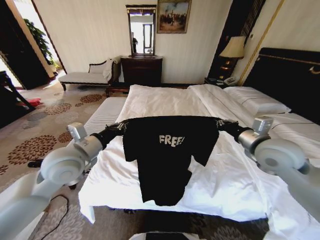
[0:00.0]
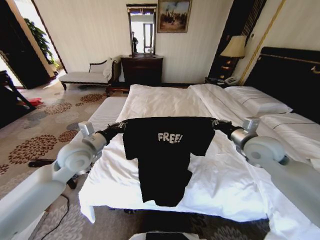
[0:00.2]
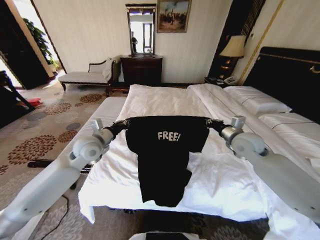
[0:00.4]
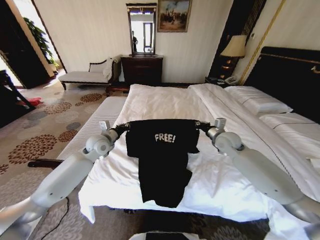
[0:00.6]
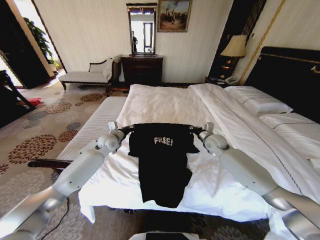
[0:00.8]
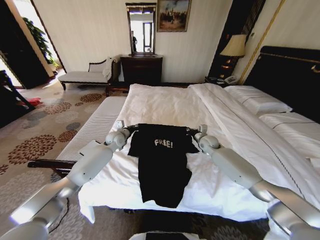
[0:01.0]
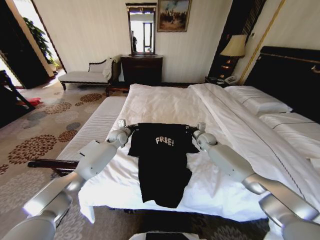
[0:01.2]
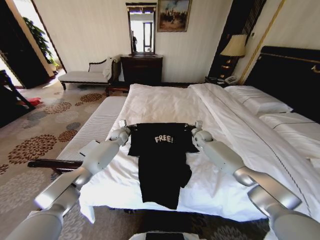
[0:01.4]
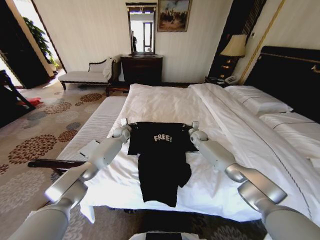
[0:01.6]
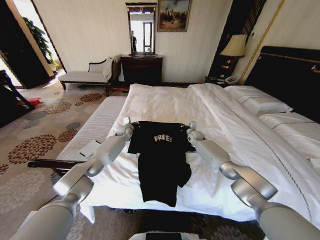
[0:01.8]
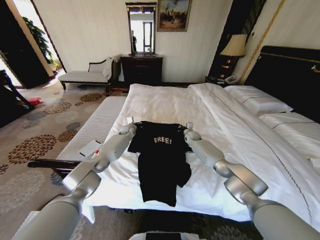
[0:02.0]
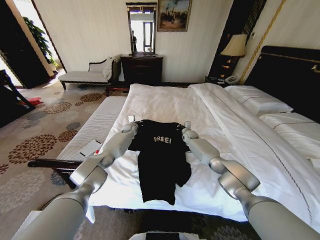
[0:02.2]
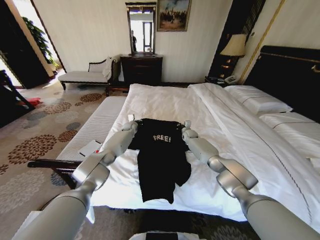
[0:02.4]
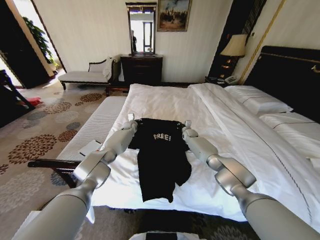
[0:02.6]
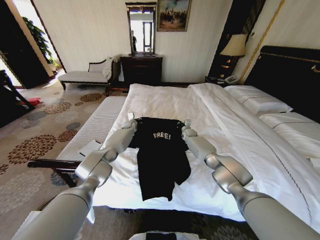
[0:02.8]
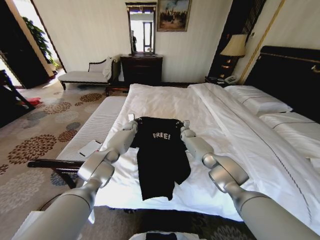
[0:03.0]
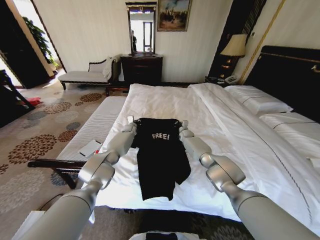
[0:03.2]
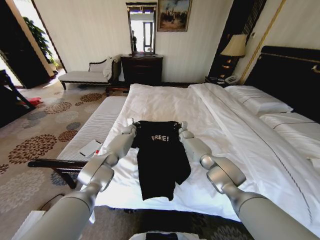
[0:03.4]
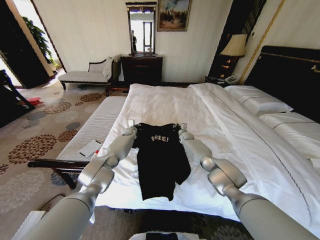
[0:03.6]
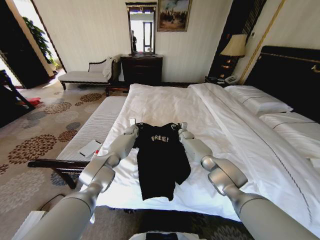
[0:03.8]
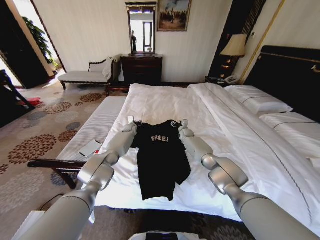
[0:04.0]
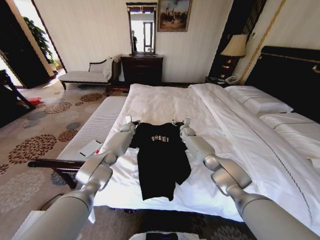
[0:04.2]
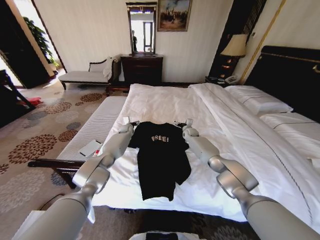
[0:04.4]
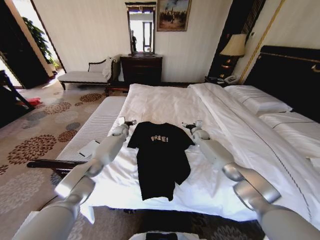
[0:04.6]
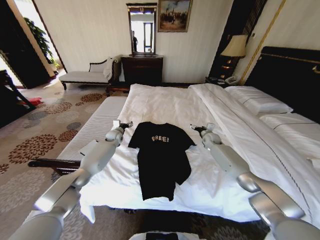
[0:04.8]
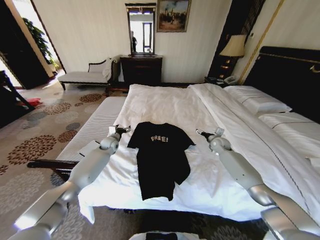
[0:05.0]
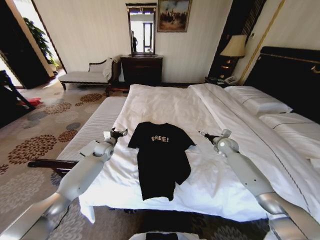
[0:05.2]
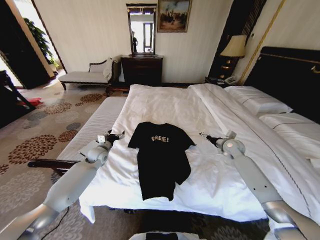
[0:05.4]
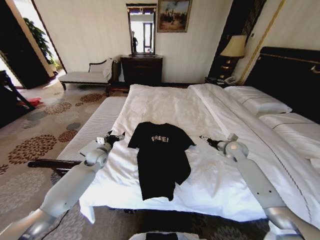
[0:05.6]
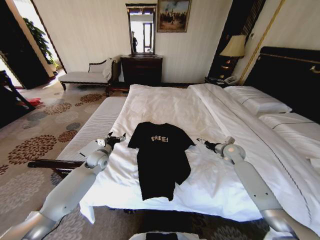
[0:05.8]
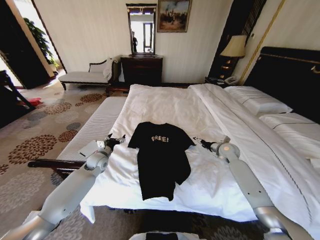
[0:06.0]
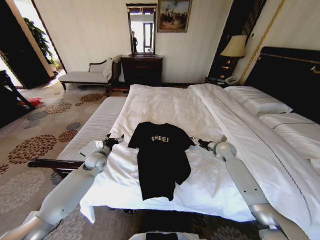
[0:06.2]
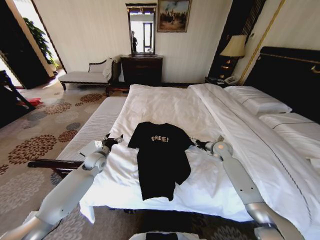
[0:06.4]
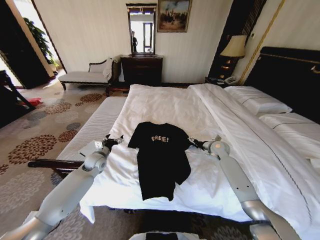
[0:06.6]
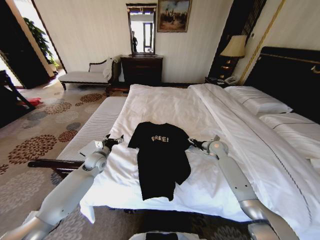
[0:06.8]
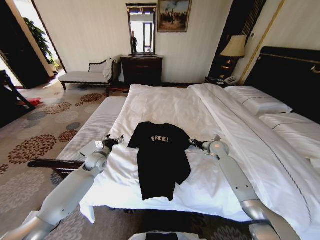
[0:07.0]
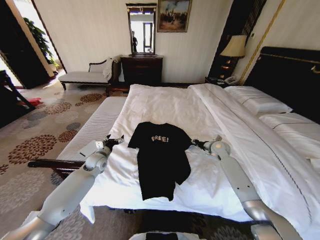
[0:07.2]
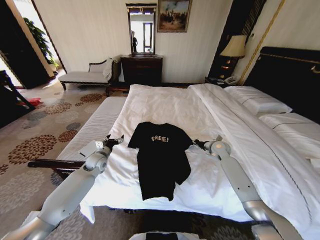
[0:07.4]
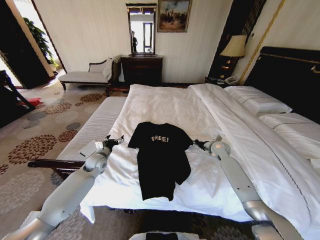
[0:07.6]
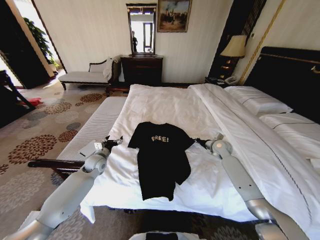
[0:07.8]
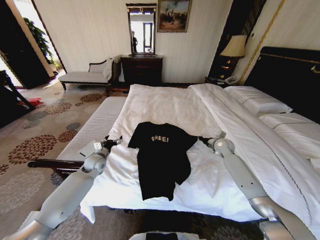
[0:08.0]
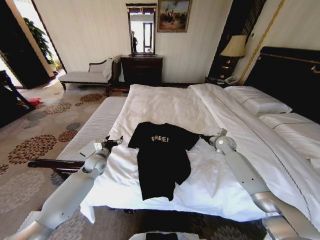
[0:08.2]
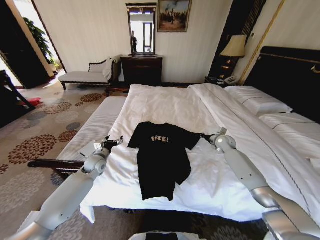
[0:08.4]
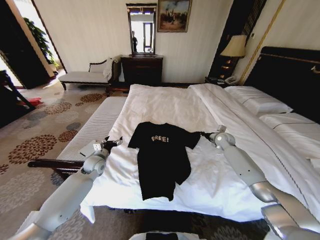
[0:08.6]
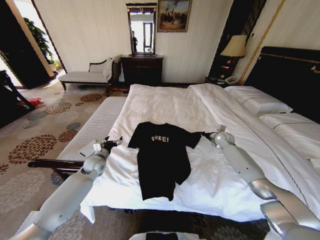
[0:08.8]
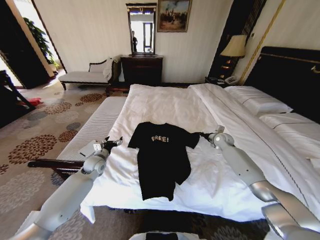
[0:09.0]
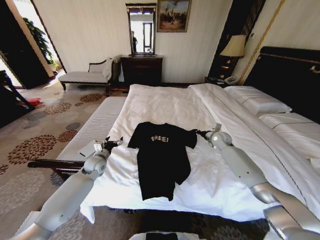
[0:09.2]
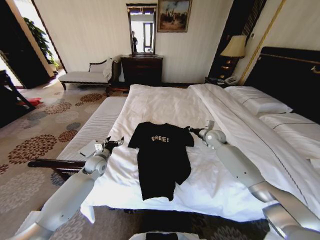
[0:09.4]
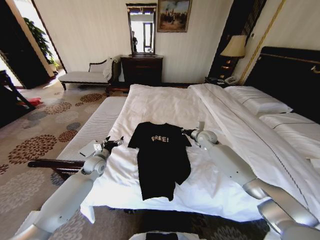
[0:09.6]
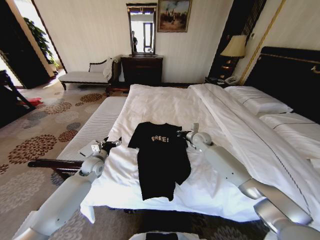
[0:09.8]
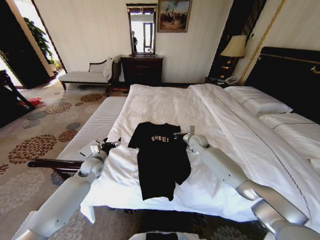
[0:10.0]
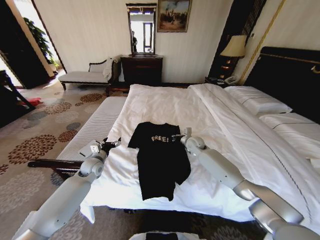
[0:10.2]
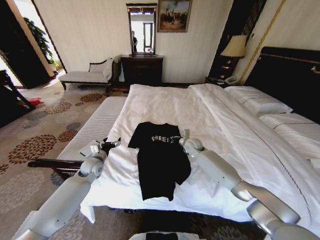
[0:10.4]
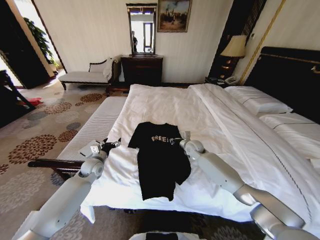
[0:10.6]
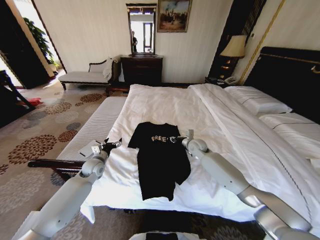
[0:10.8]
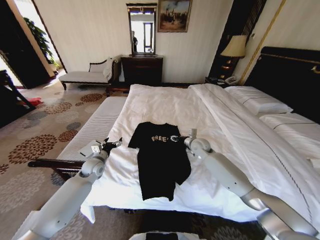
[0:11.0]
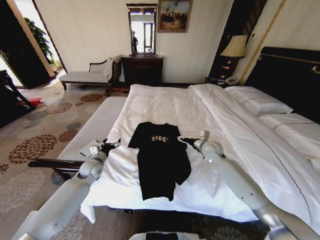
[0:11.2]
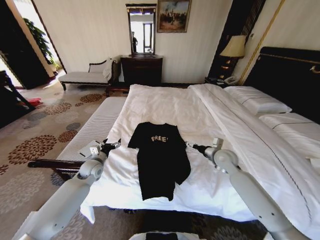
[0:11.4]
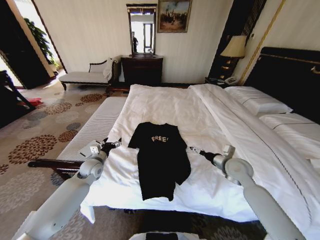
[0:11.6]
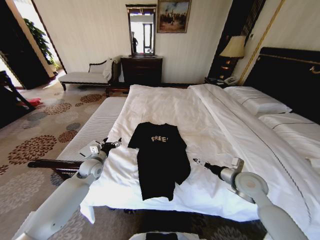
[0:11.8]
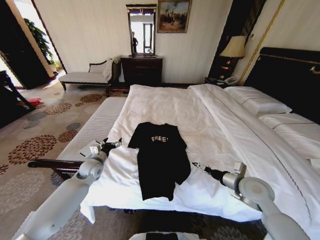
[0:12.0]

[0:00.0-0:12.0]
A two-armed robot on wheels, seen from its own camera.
Task of the whole recording: Fold the clothes on the bed.
0:00.0 to 0:01.6: The two grippers go about 35 cm forward and downward.
0:01.6 to 0:03.0: The two grippers go approximately 5 cm forward.
0:03.0 to 0:04.4: The left gripper opens up; the right gripper opens up.
0:04.4 to 0:06.0: The left gripper is displaced backward and to the left by approximately 25 cm. The right gripper heads backward and to the right, covering some 25 cm.
0:06.0 to 0:07.6: The right gripper closes its fingers.
0:07.6 to 0:09.0: The right gripper moves forward, some 5 cm.
0:09.0 to 0:10.4: The right gripper goes some 20 cm to the left.
0:10.4 to 0:12.0: The right gripper heads backward and to the right, covering approximately 30 cm, and opens its fingers.

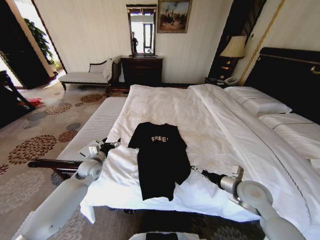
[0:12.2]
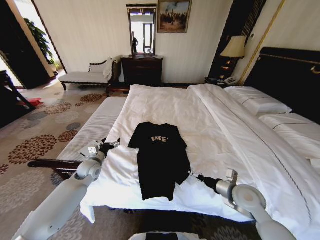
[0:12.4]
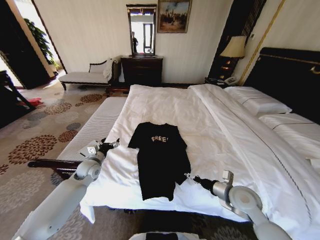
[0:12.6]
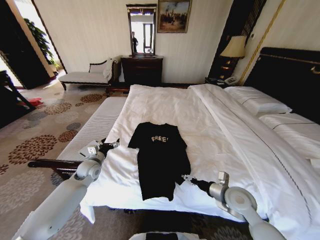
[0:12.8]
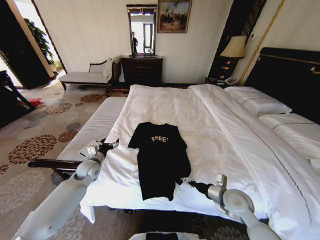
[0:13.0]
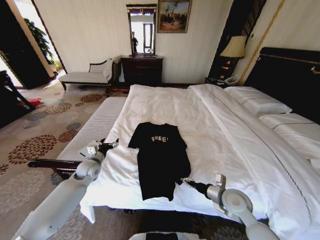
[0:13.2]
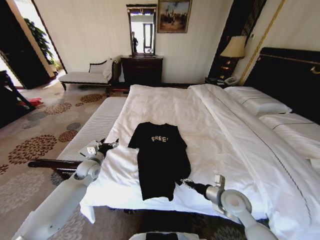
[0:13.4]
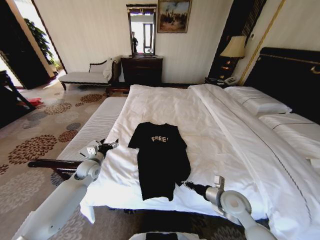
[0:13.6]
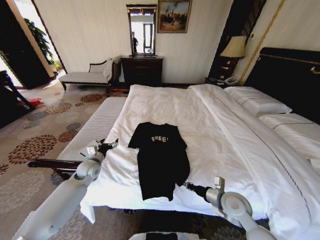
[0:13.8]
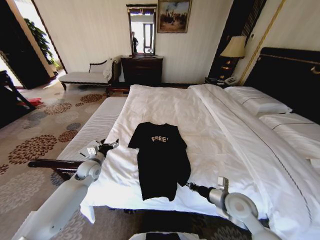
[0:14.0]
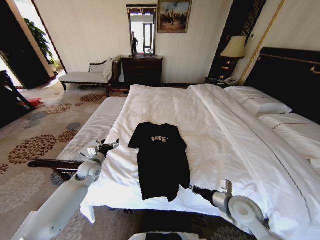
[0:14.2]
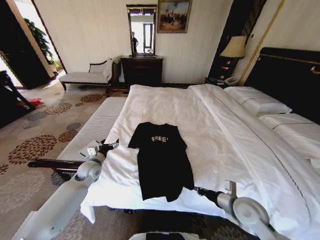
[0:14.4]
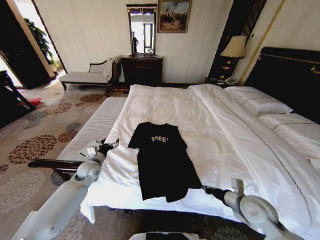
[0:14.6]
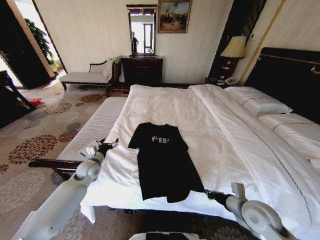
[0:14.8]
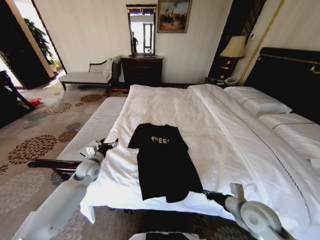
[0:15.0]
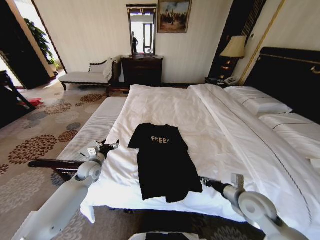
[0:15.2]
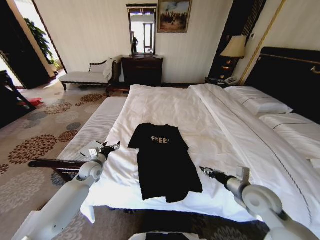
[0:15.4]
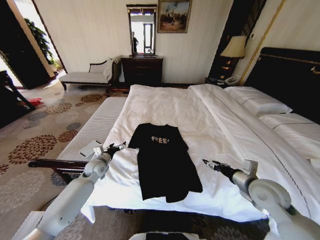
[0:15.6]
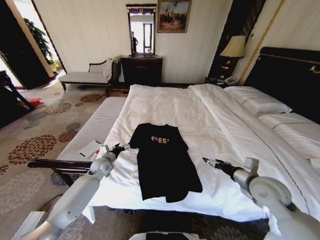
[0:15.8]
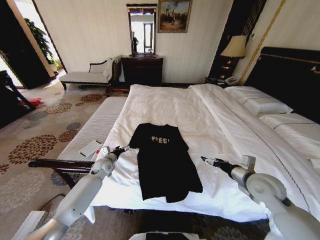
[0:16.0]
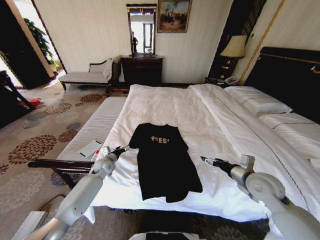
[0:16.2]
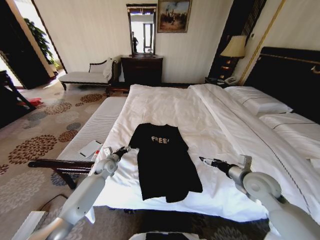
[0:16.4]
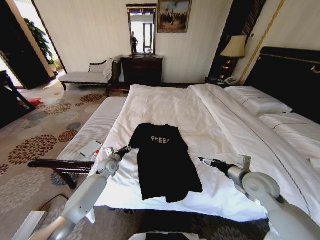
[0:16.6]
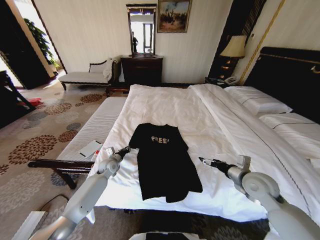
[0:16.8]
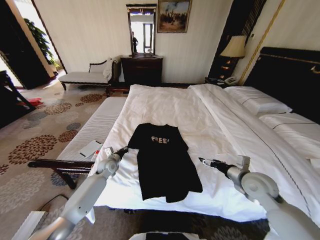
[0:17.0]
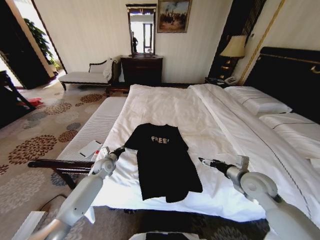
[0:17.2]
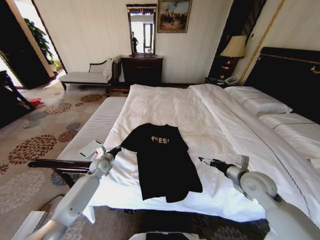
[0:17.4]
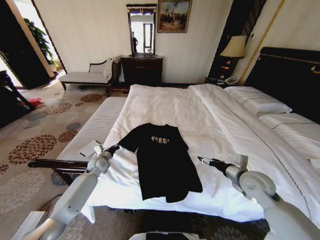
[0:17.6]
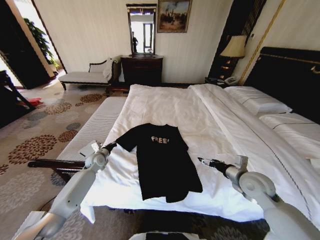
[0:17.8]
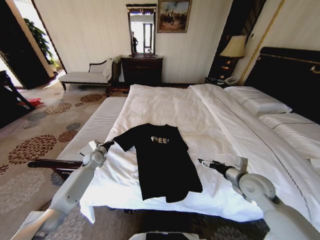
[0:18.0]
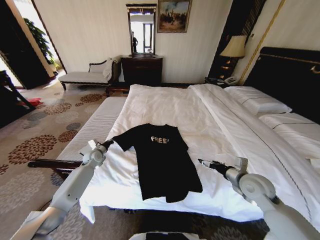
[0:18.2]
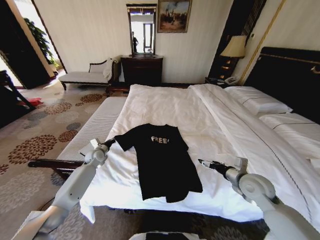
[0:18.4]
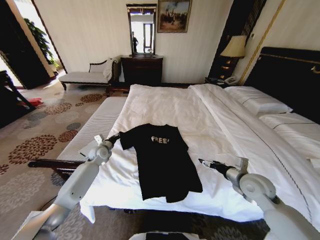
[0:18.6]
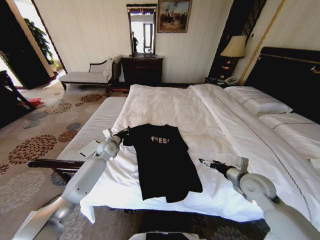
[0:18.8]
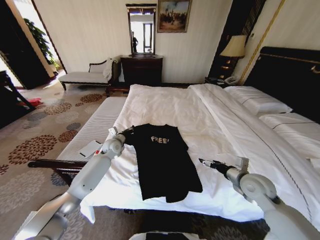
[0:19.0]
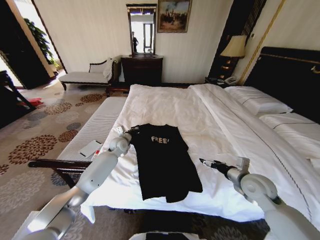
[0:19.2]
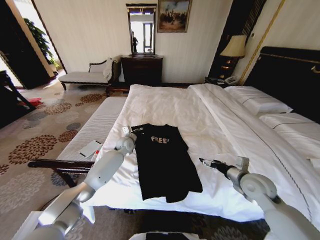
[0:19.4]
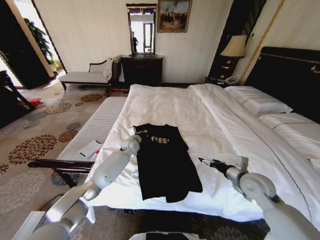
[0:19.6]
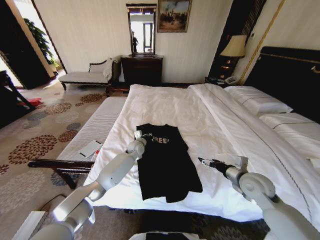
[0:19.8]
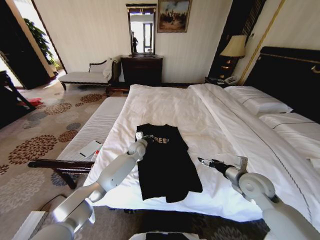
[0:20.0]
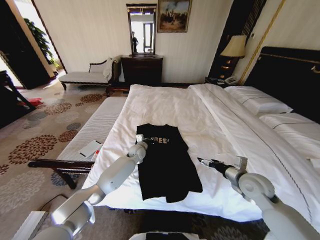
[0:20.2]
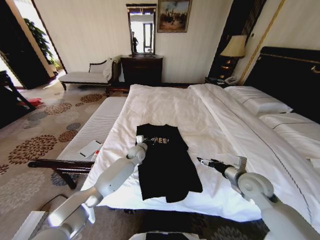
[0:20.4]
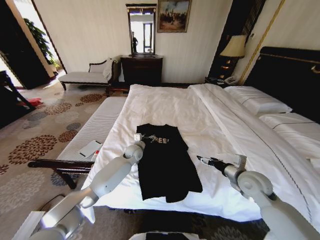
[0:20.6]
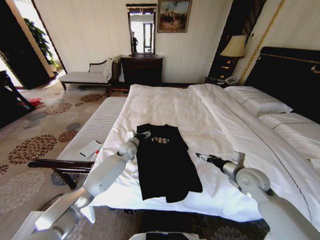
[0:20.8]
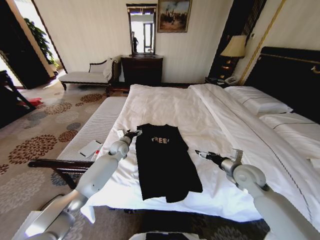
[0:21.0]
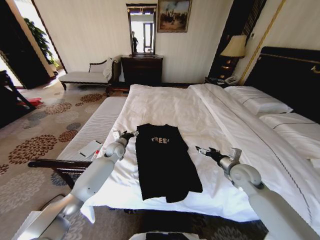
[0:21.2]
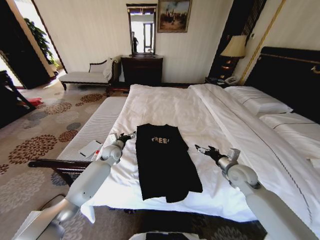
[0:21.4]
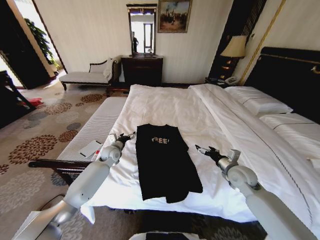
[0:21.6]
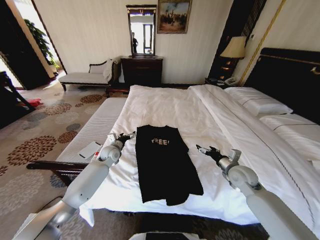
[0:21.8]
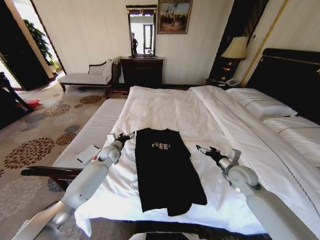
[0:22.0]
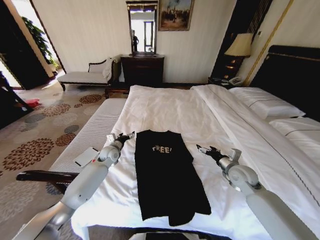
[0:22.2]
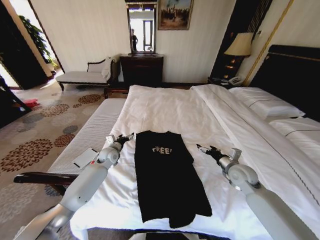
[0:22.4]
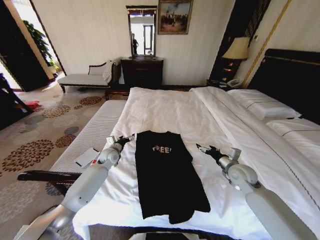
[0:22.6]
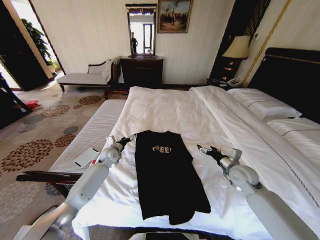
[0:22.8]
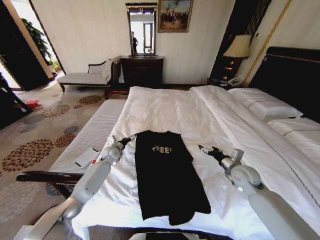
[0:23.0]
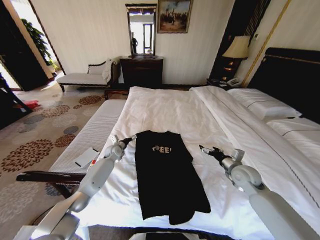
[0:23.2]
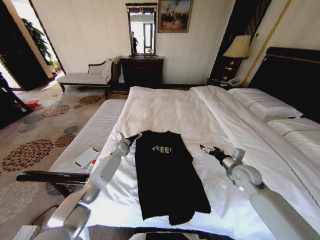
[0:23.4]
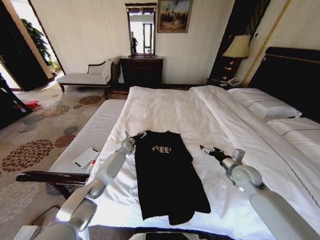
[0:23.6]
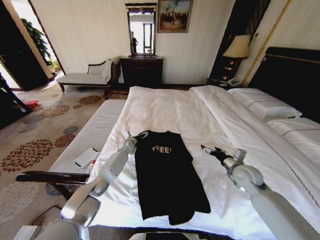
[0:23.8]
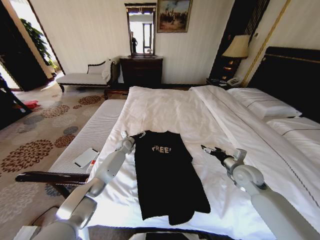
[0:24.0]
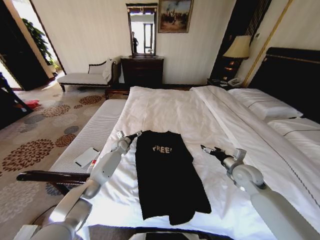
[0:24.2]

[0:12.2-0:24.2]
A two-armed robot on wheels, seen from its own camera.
Task of the whole recording: Fold the clothes on the bed.
0:12.2 to 0:13.8: The right gripper travels to the left and downward by some 10 cm, and closes up.
0:13.8 to 0:15.2: The right gripper ends up roughly 5 cm from where it was.
0:15.2 to 0:16.6: The right gripper travels forward by some 5 cm, and opens. Meanwhile the left gripper goes about 10 cm downward, forward and to the right, and closes.
0:16.6 to 0:18.2: The left gripper heads to the left, covering some 10 cm, and closes its fingers.
0:18.2 to 0:19.8: The left gripper is displaced to the right by about 25 cm.
0:19.8 to 0:21.2: The left gripper moves to the left, roughly 10 cm, and opens its fingers.
0:22.6 to 0:24.2: The left gripper goes approximately 10 cm forward.
